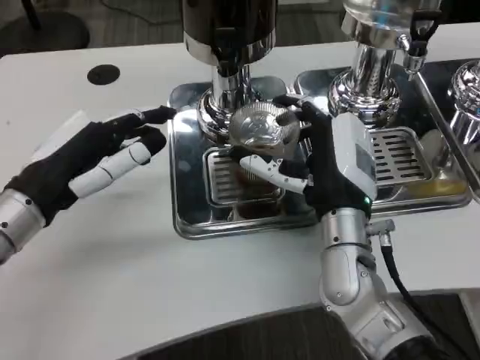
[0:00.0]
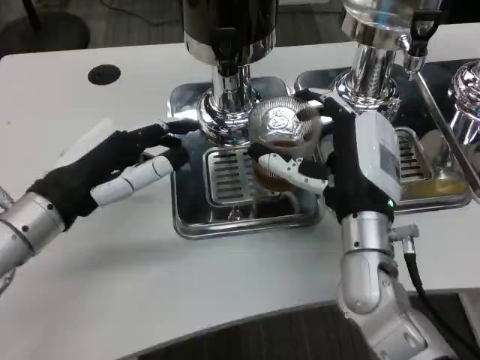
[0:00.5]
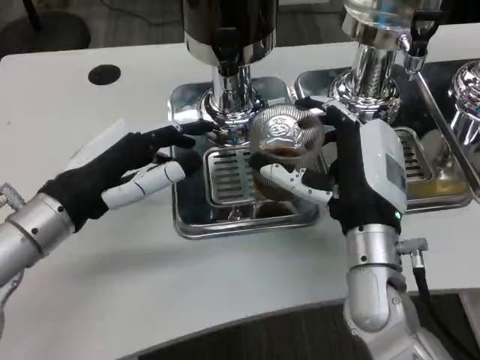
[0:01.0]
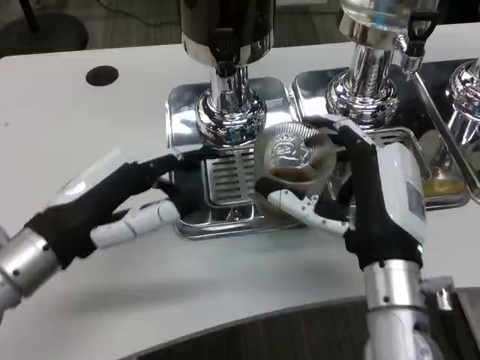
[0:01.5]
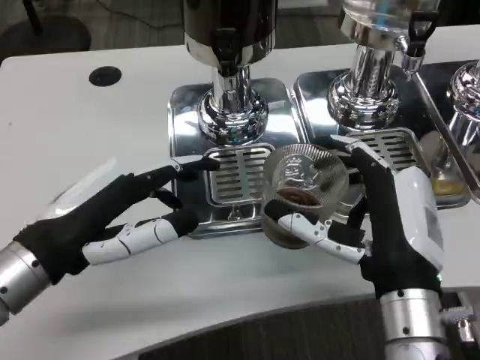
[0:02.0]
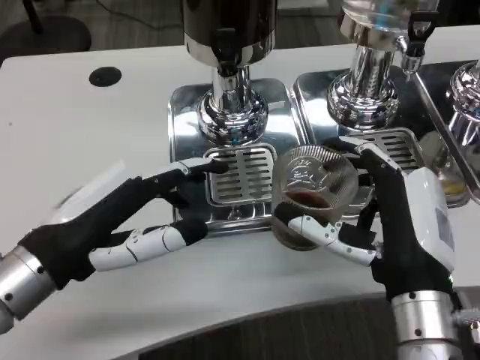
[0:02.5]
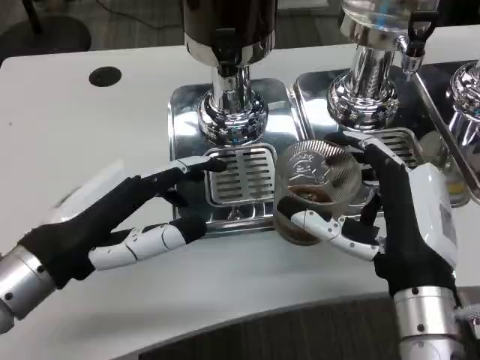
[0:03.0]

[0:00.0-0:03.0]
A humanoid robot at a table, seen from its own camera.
Task of the whole recording: Grasp the cup under the faucet to collect the drink, then remove the cup.
0:00.0 to 0:01.5: The right hand goes about 10 cm backward.
